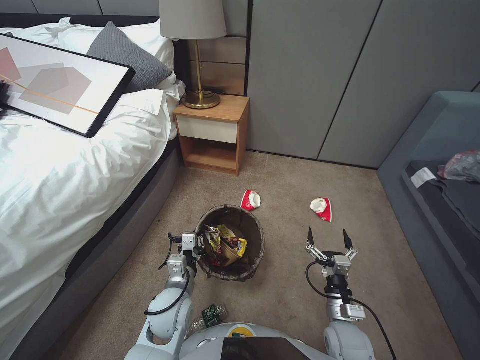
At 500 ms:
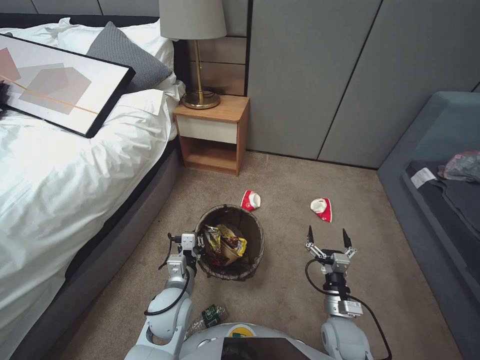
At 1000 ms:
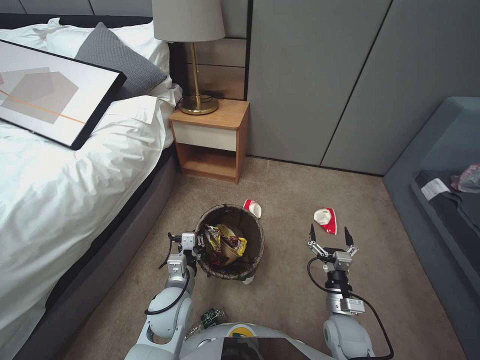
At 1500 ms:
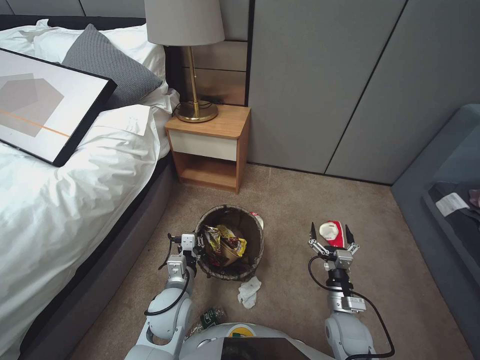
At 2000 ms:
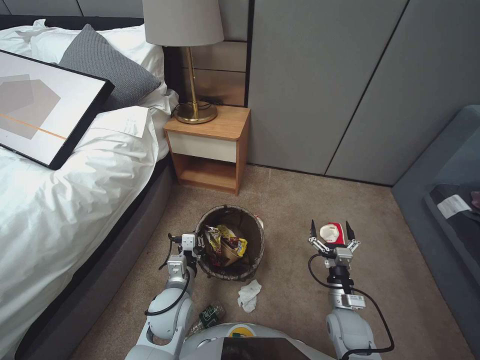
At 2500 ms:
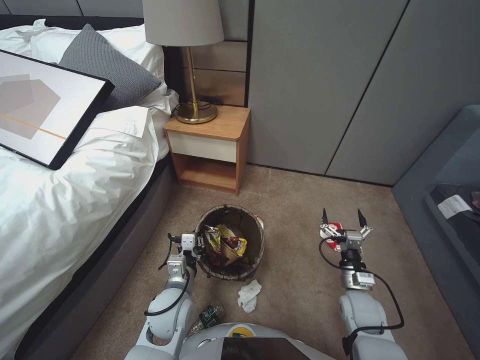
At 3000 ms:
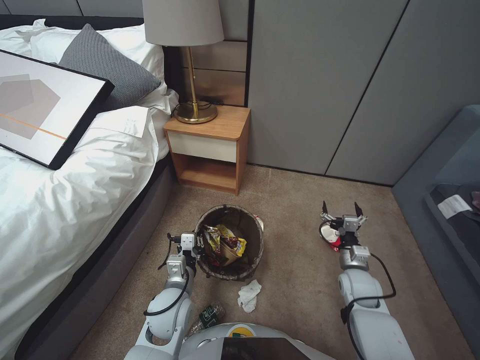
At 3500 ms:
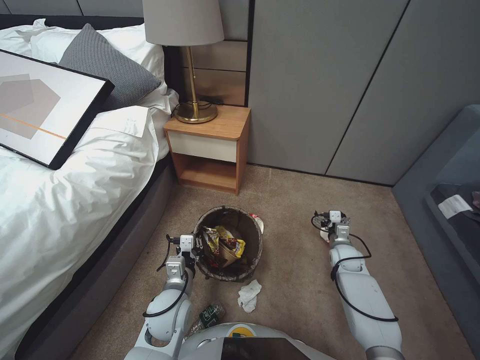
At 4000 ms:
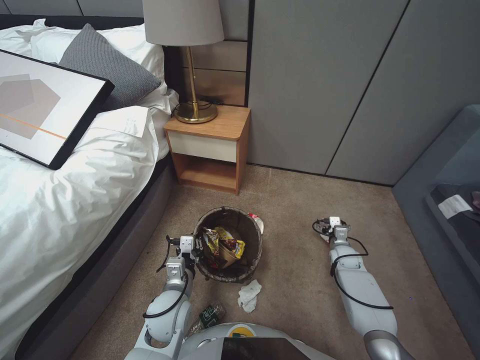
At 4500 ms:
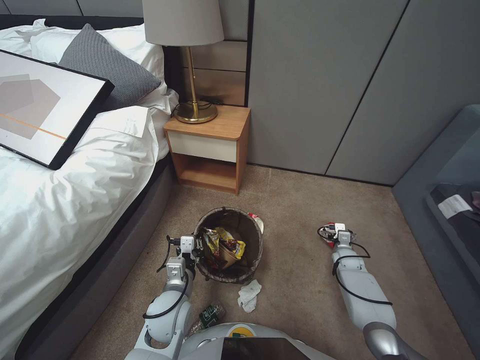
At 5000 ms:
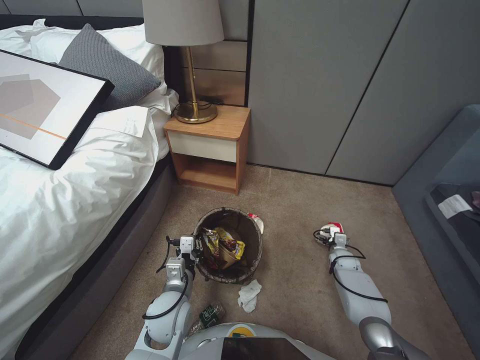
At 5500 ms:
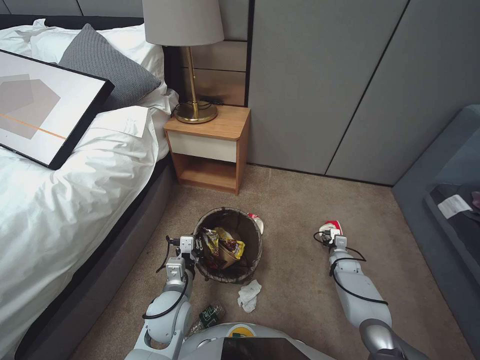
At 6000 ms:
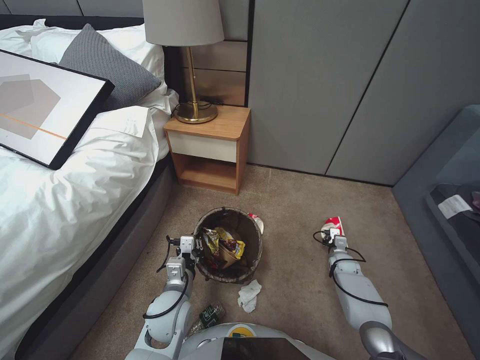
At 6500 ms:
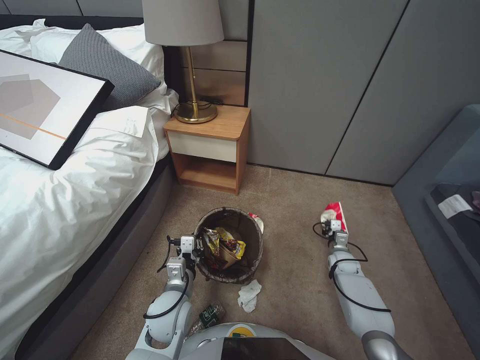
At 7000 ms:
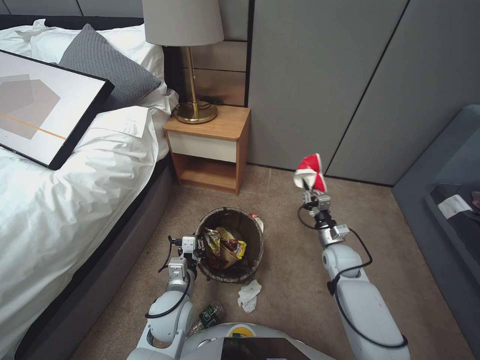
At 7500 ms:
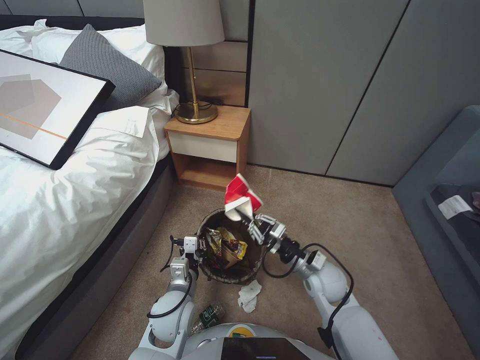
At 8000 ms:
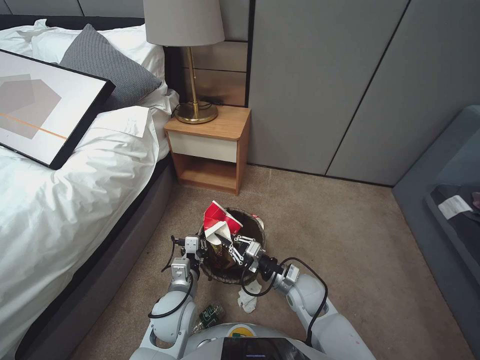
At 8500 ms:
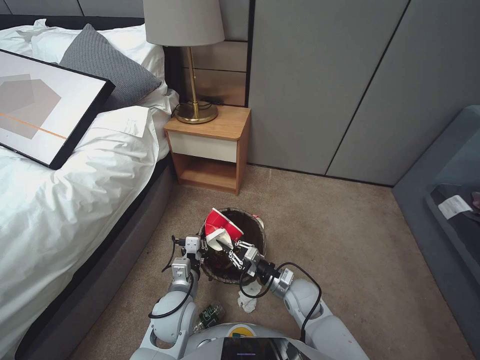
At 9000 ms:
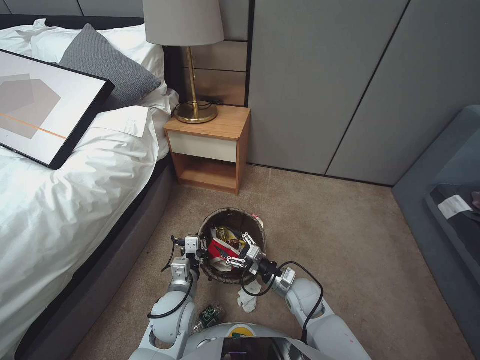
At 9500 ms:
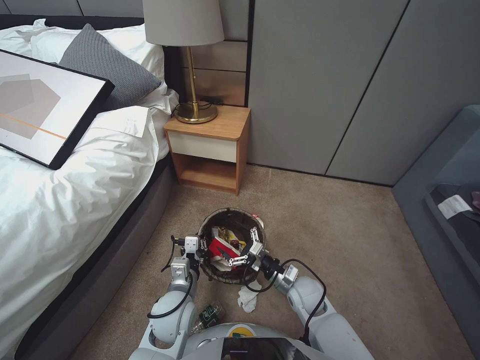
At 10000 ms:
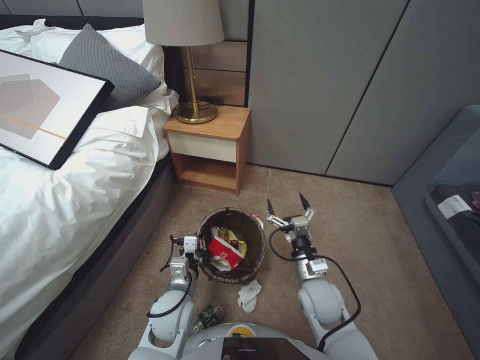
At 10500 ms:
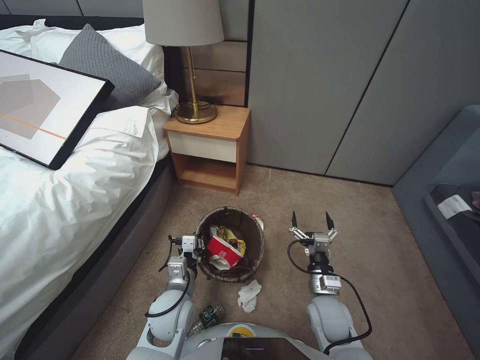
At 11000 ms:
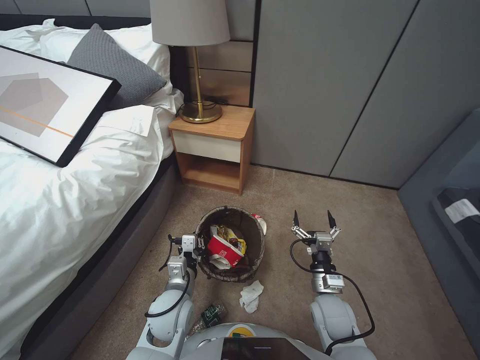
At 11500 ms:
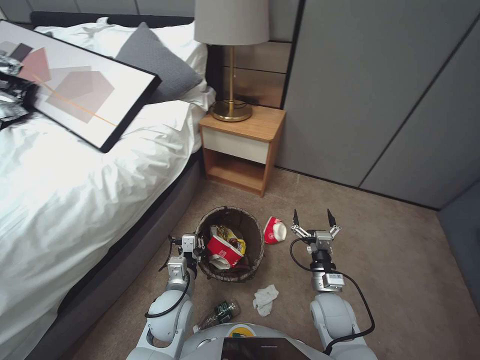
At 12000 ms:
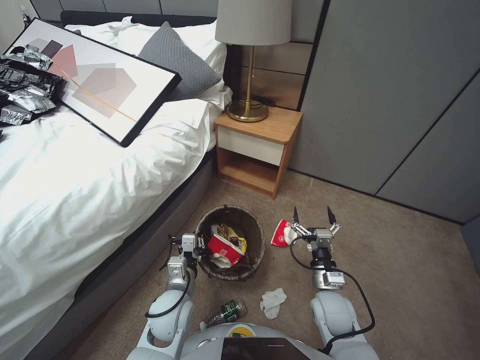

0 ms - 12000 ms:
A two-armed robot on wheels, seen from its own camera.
Task of the whole recording: Pick up the trash bin, then pick up the garbage from the floor and place it into the trash bin.
0 ms - 2000 ms: The right gripper shifts by roughly 5 cm.
2000 ms - 4000 ms: The right gripper travels forward and to the right by roughly 20 cm.
4000 ms - 6000 ms: The right gripper heads downward, covering approximately 5 cm, and closes its fingers.
6000 ms - 8000 ms: The right gripper moves to the left, upward and backward, about 30 cm.
8000 ms - 10000 ms: The right gripper opens.
10000 ms - 12000 ms: The right gripper heads downward, covering roughly 5 cm.

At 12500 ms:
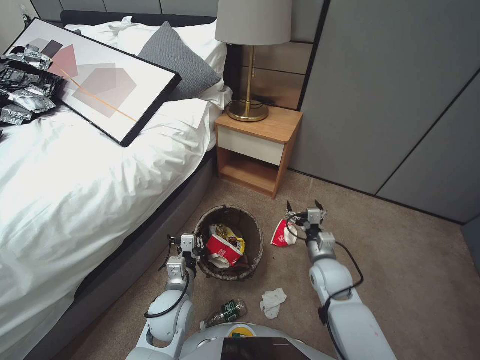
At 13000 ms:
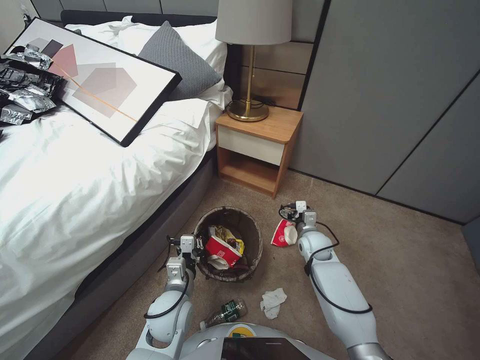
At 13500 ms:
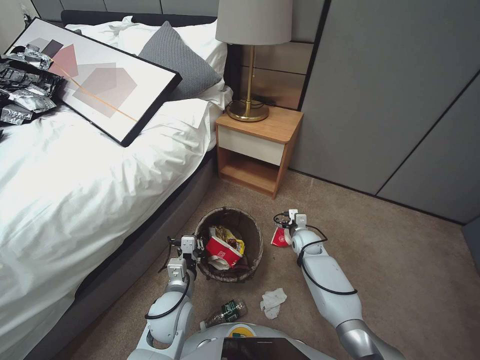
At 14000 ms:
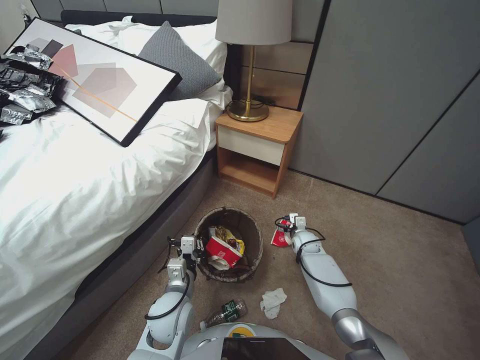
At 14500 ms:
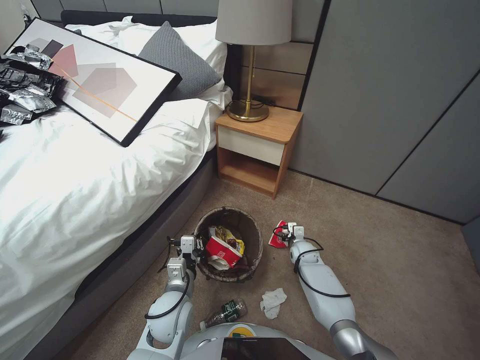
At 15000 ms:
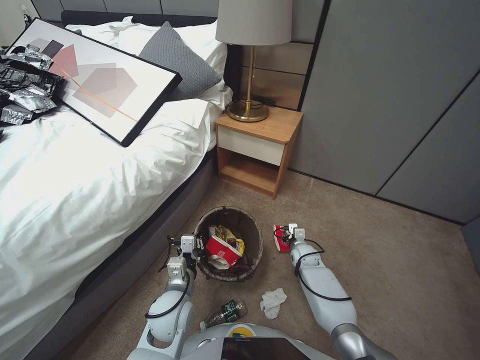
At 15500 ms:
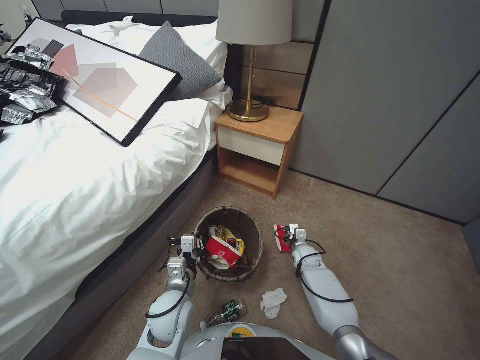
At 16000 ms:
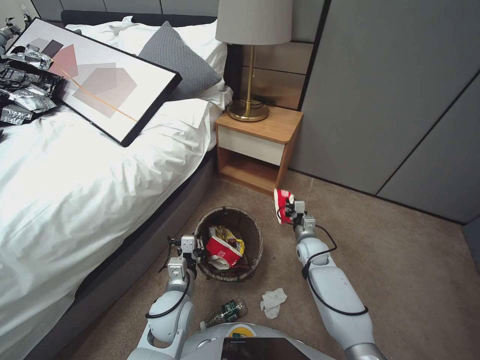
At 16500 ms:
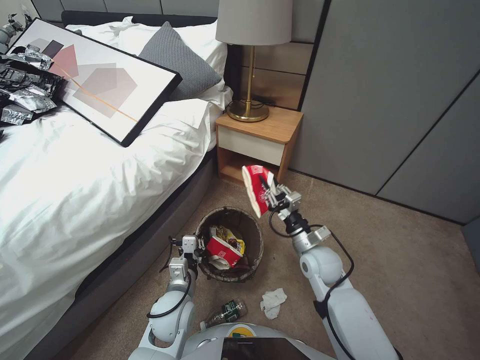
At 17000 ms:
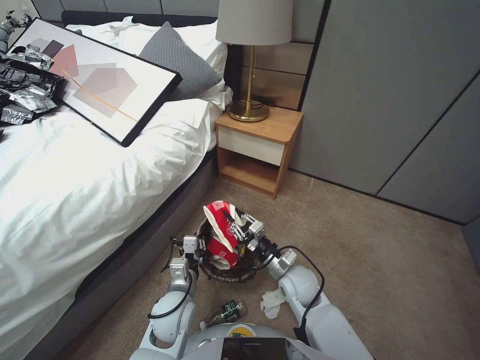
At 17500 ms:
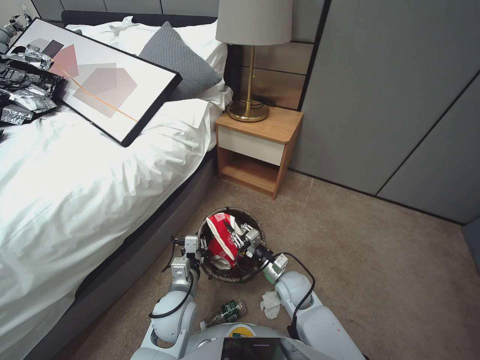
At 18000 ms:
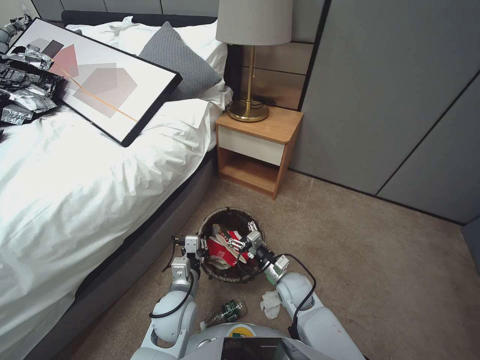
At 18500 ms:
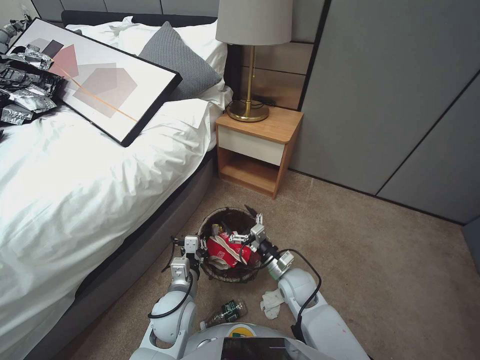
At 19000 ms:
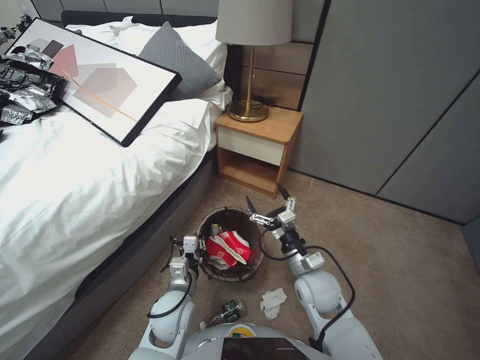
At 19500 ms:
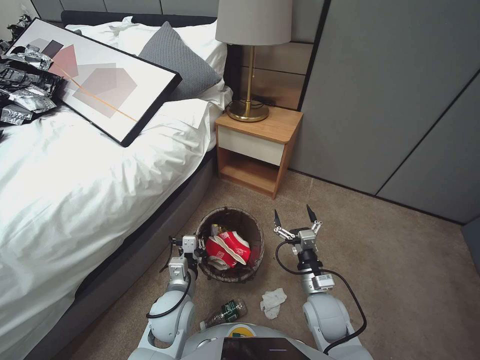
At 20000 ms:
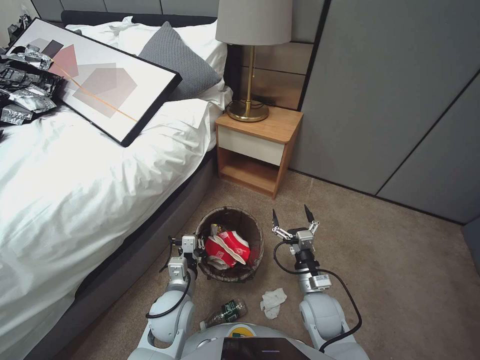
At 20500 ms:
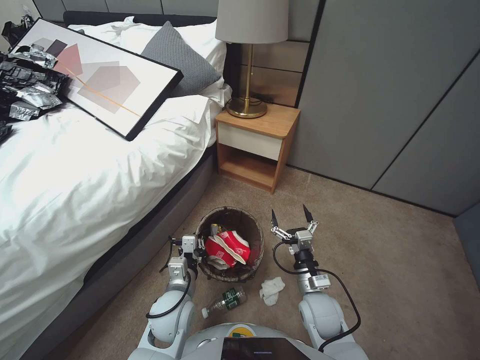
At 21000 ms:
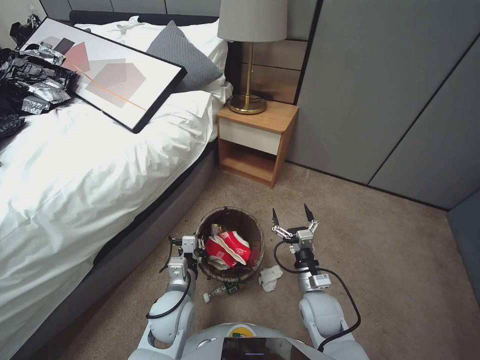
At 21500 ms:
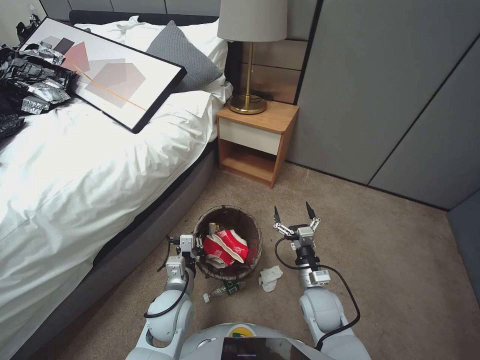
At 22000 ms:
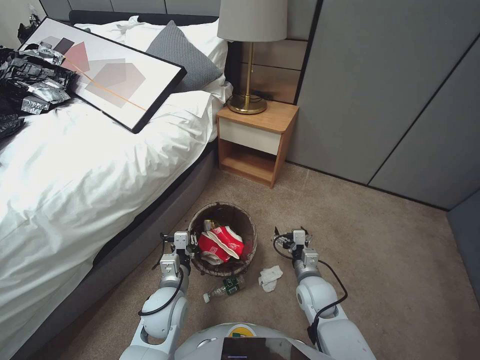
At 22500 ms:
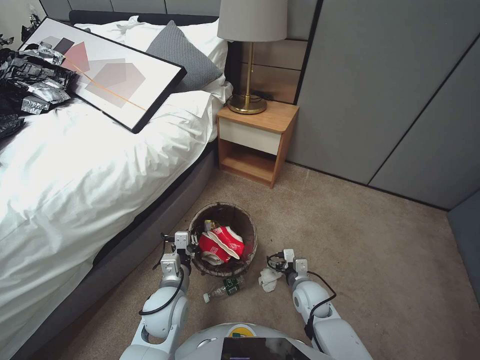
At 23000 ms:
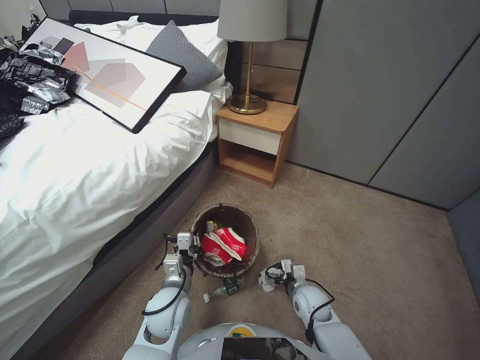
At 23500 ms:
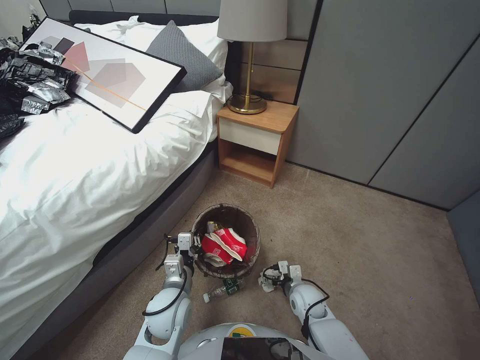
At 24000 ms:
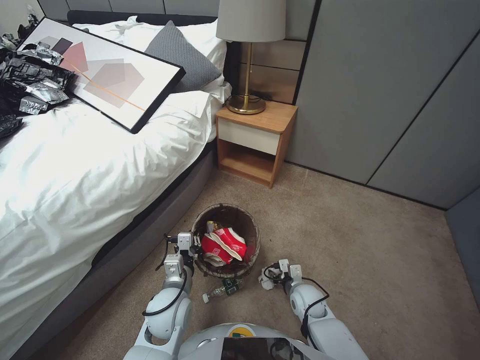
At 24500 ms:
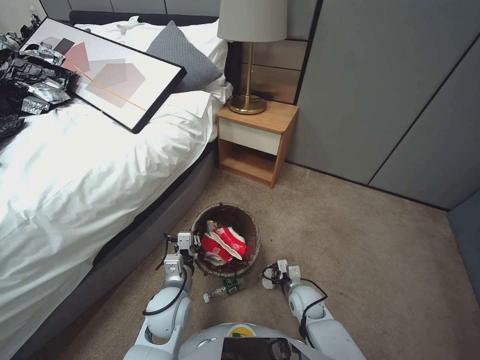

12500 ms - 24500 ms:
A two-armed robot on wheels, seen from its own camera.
Task of the whole recording: Pick up the trash bin, then pick up the garbage from the floor and place it into the trash bin.
12500 ms - 14500 ms: The right gripper shifts approximately 20 cm forward and downward.
14500 ms - 16500 ms: The right gripper moves upward and backward, about 20 cm, and closes its fingers.
16500 ms - 18500 ms: The right gripper moves downward and to the left, roughly 10 cm, and opens.
18500 ms - 20500 ms: The right gripper goes about 5 cm backward, and goes upward and returns, approximately 10 cm each way.
20500 ms - 22500 ms: The right gripper is displaced downward by approximately 5 cm.
22500 ms - 24500 ms: The right gripper closes its fingers.

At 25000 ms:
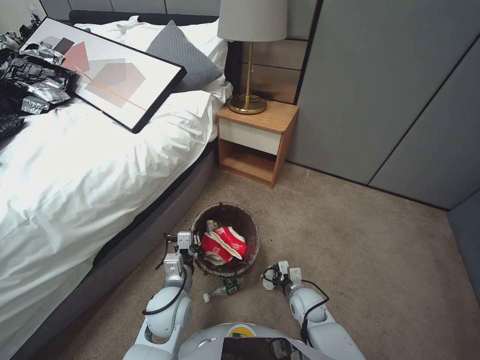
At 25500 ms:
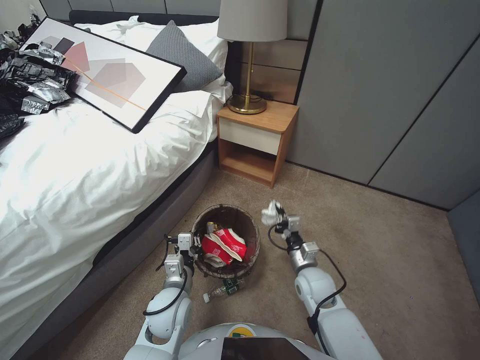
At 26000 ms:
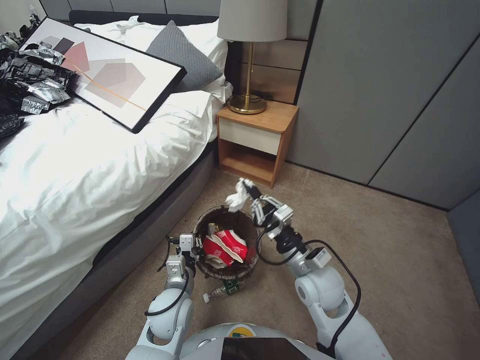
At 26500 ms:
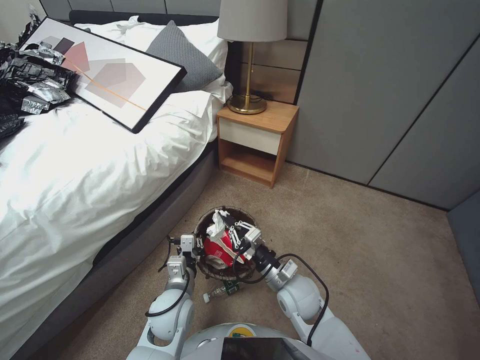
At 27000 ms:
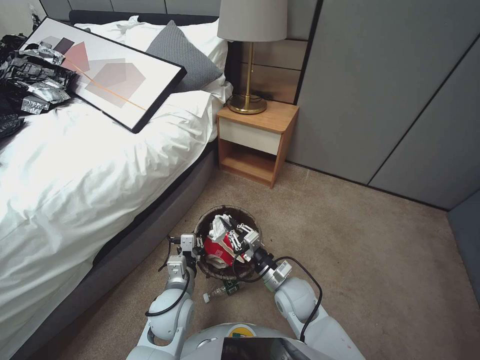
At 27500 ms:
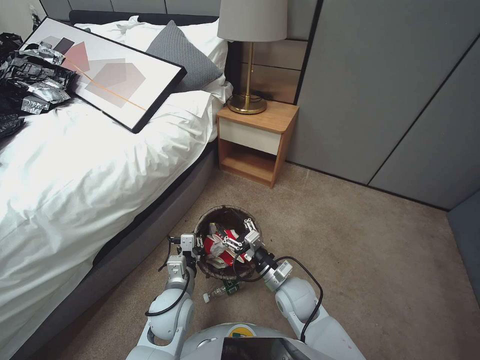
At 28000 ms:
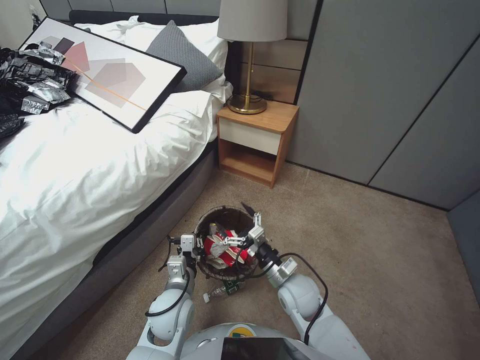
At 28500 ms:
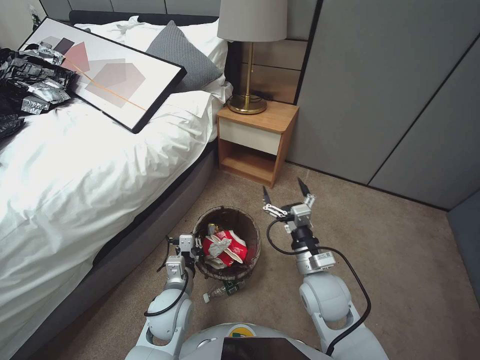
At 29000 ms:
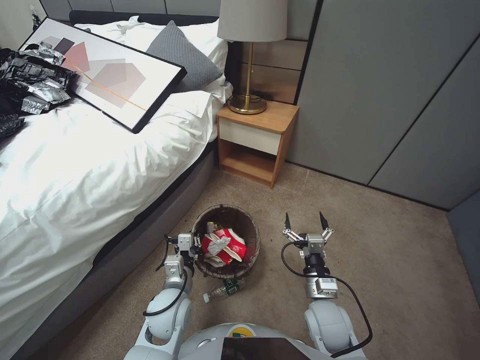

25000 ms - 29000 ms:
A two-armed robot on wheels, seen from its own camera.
Task of the whole recording: Pick up the trash bin, then pick up the garbage from the floor and place it into the trash bin.
25000 ms - 27000 ms: The right gripper shifts about 15 cm upward and to the left.
27000 ms - 29000 ms: The right gripper heads upward, covering roughly 5 cm, and opens up.
